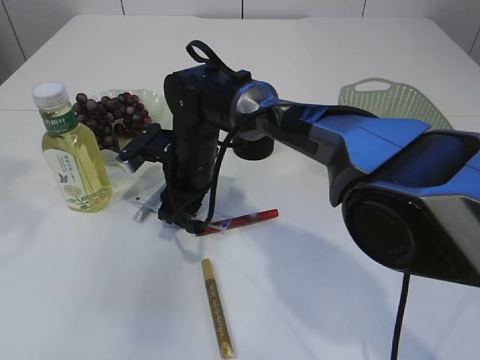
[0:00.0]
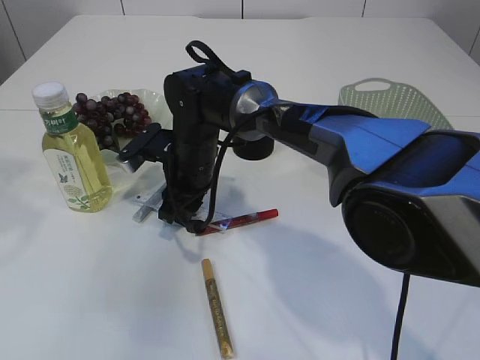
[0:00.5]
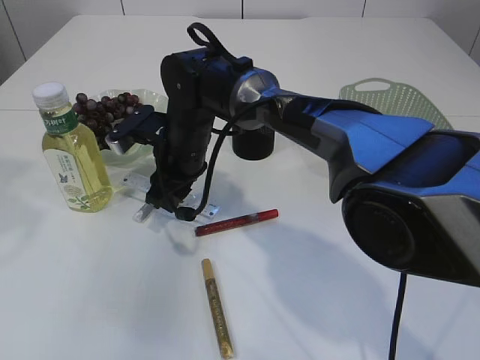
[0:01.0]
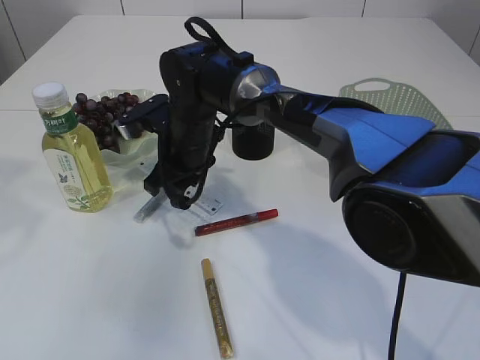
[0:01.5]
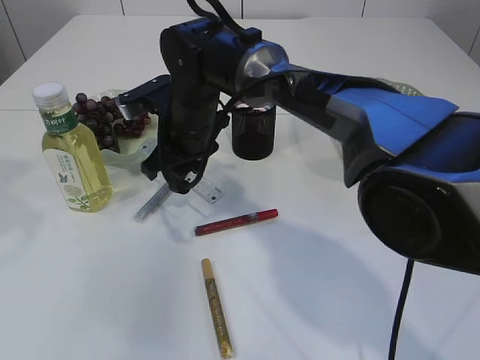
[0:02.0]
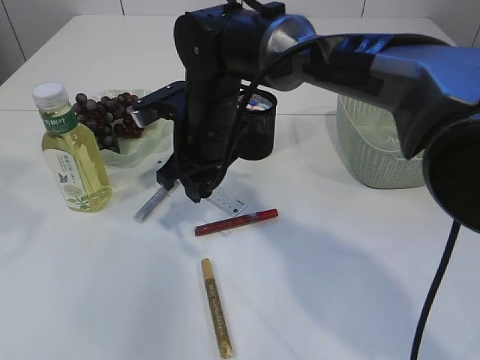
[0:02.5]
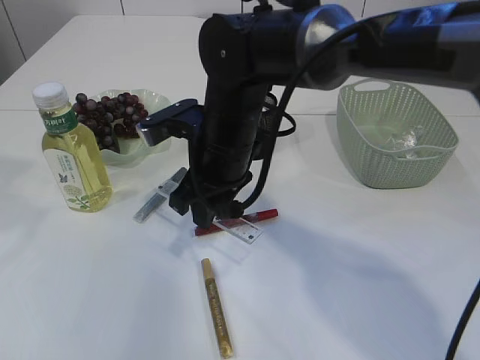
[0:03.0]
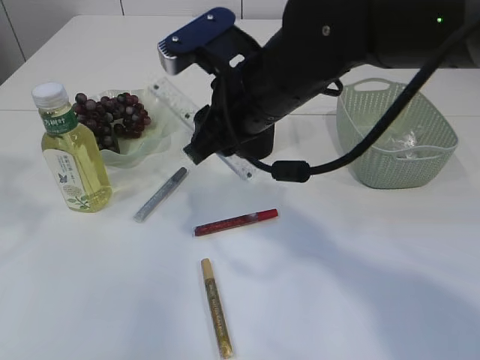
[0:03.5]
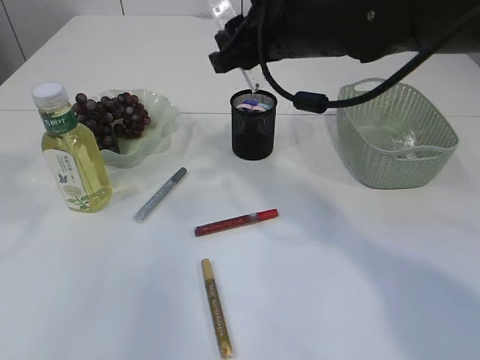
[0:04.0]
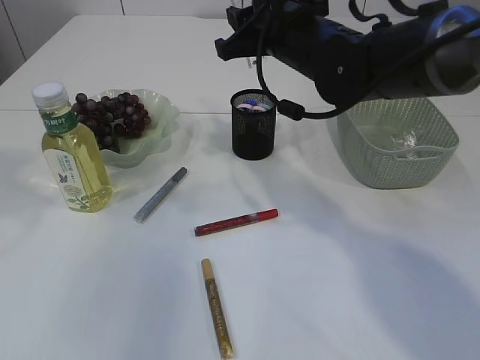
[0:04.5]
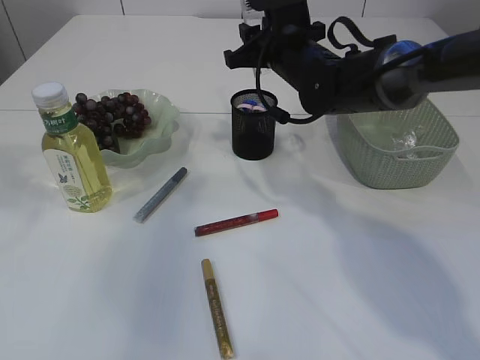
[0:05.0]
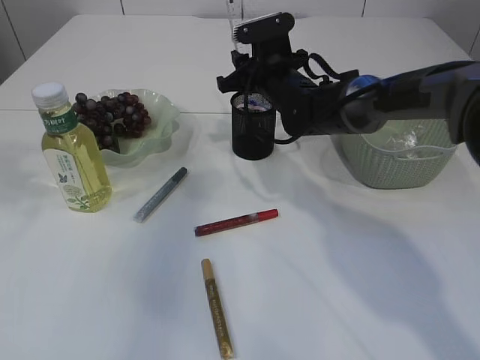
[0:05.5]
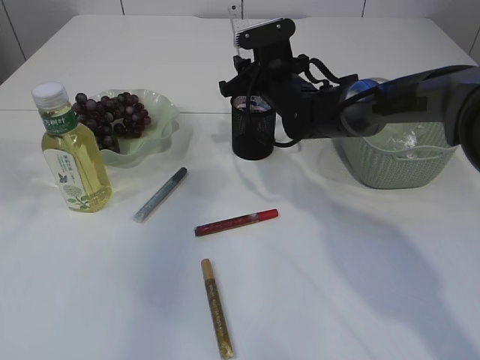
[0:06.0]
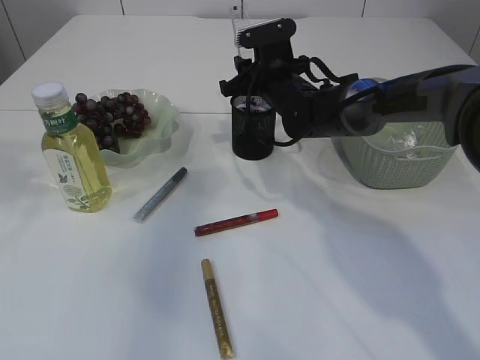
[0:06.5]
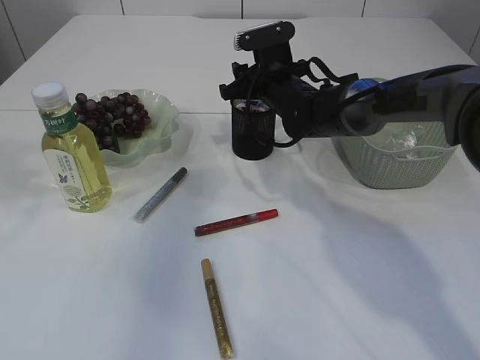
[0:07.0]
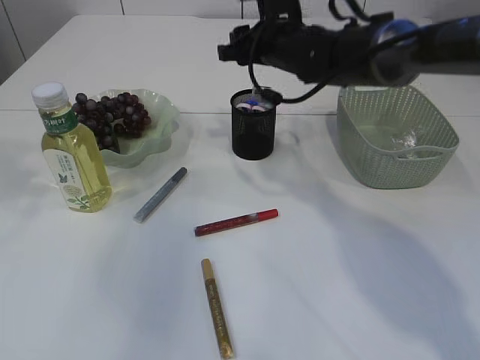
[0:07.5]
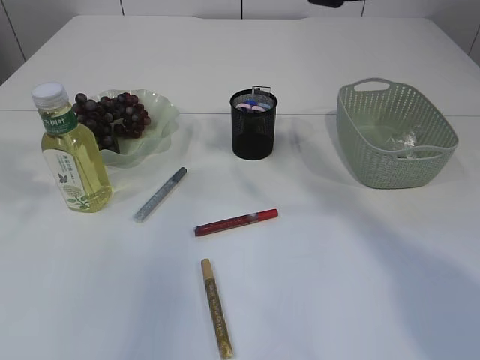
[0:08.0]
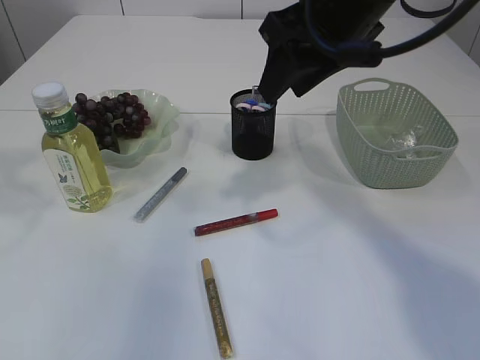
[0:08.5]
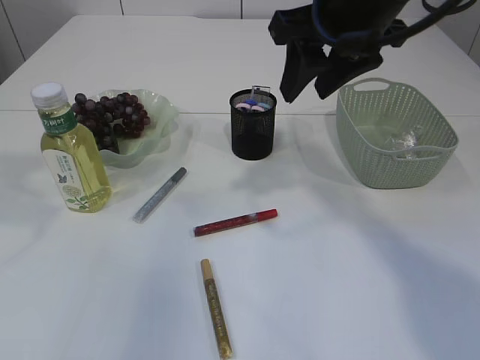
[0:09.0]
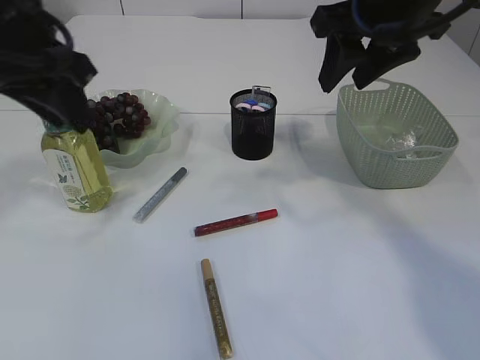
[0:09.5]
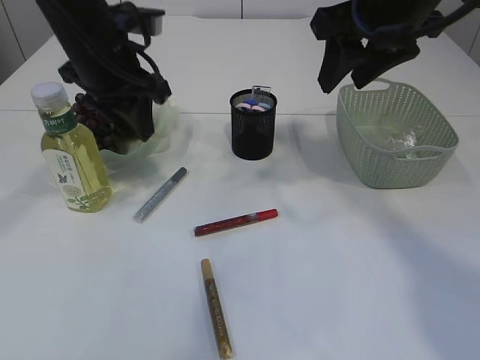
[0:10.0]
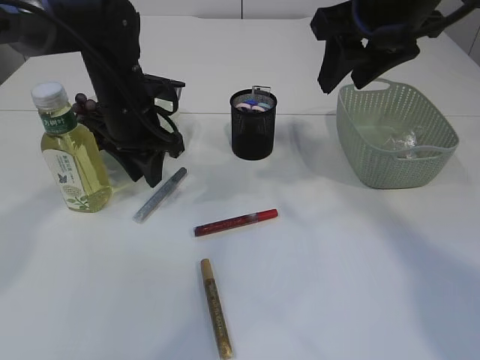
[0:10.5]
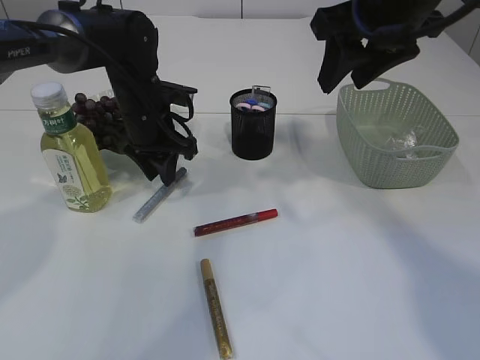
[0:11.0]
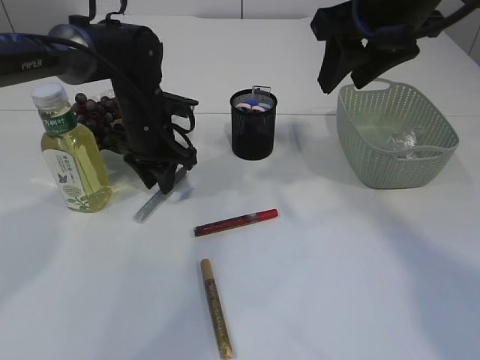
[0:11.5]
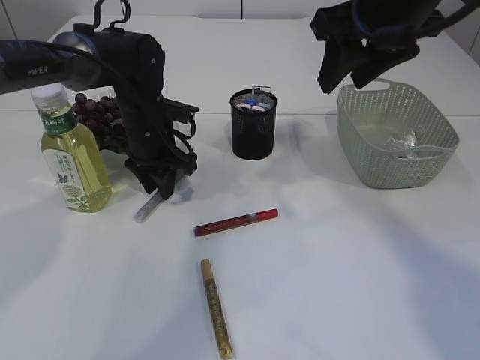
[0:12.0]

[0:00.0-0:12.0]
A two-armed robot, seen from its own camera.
Step, 0:00.0 to 0:02.5: pick up the ruler.
Step, 0:03.0 to 0:07.5: Place the ruler into the pen holder.
0:00.0 to 0:02.0: The right gripper goes approximately 5 cm upward.
0:02.0 to 0:04.0: The right gripper moves upward and to the right, about 15 cm.
0:04.0 to 0:06.0: The right gripper goes some 20 cm forward and downward.
0:06.0 to 0:08.0: The right gripper travels upward and backward by roughly 25 cm.
0:08.0 to 0:10.0: The right gripper travels to the right by roughly 5 cm. Meanwhile the left gripper travels to the right, forward and downward by approximately 20 cm.
0:10.0 to 0:12.0: The left gripper is displaced downward and forward by some 15 cm.

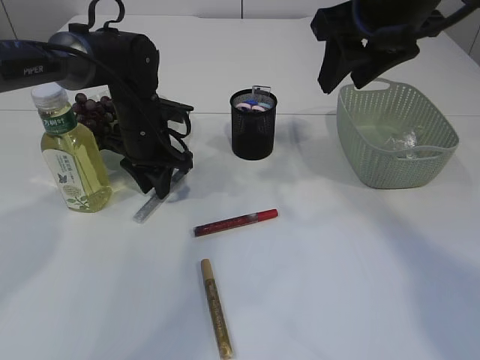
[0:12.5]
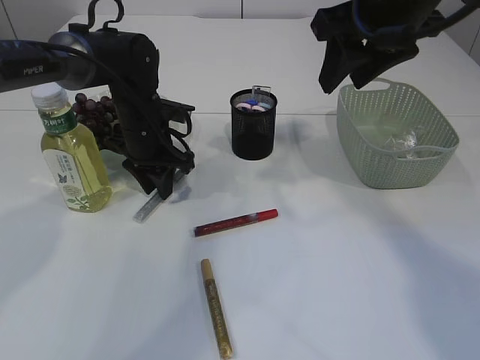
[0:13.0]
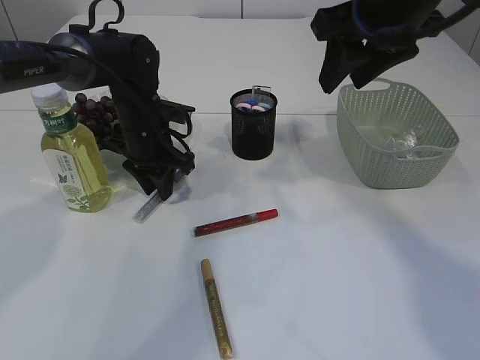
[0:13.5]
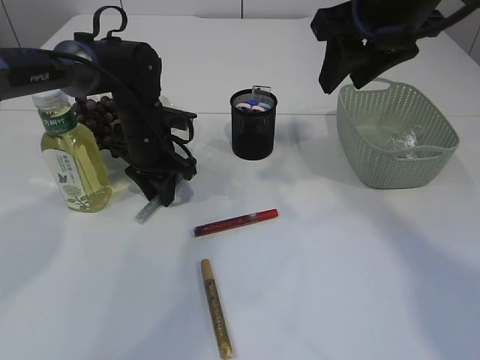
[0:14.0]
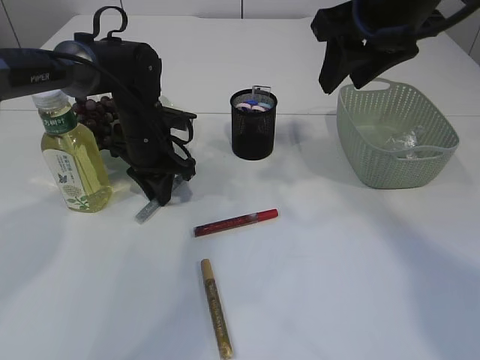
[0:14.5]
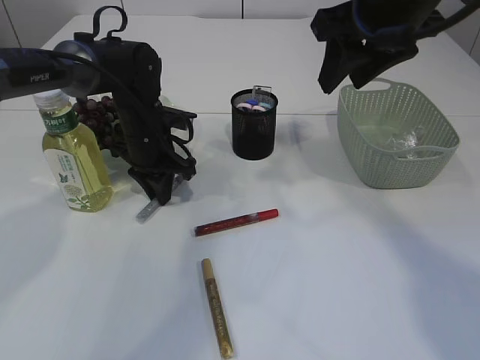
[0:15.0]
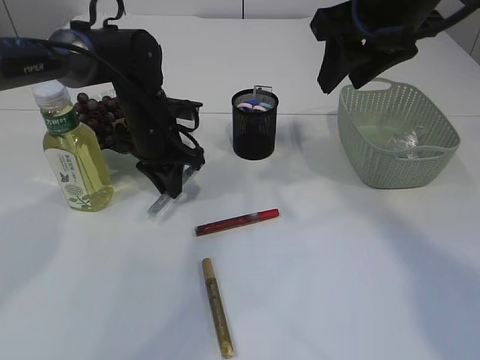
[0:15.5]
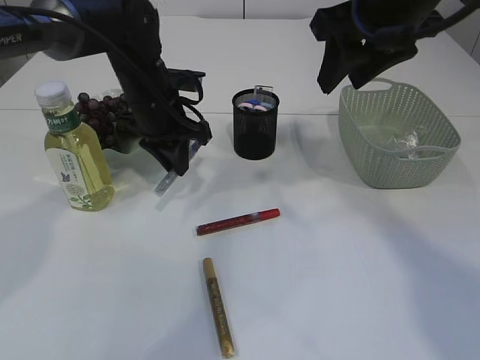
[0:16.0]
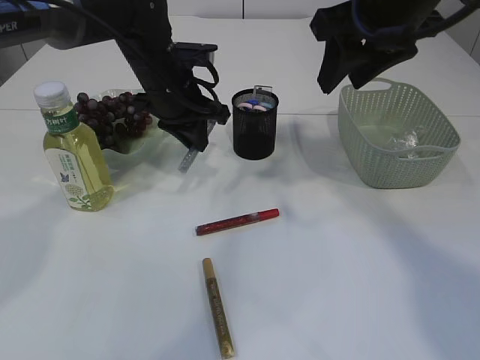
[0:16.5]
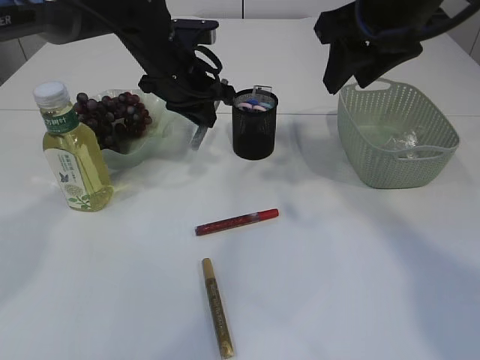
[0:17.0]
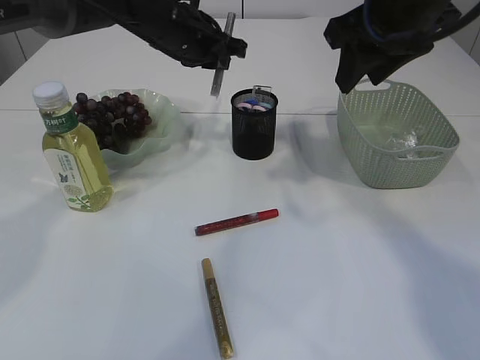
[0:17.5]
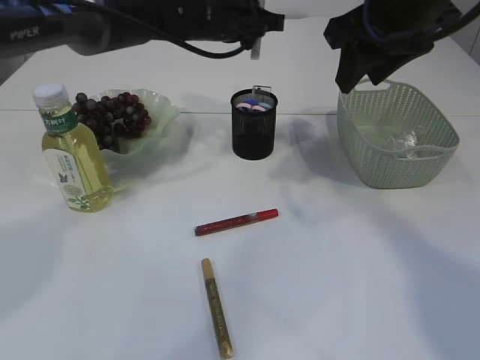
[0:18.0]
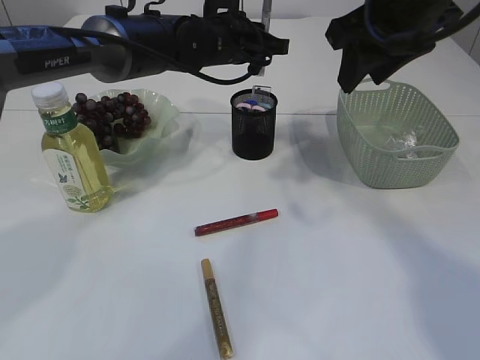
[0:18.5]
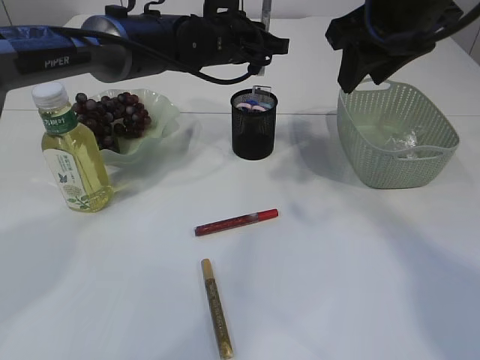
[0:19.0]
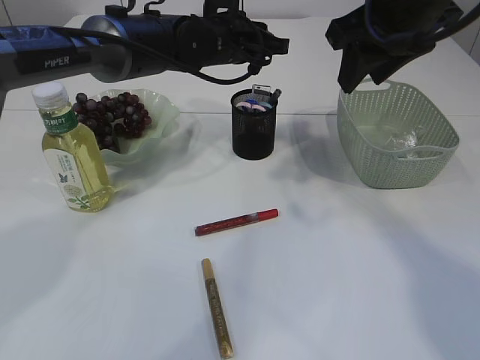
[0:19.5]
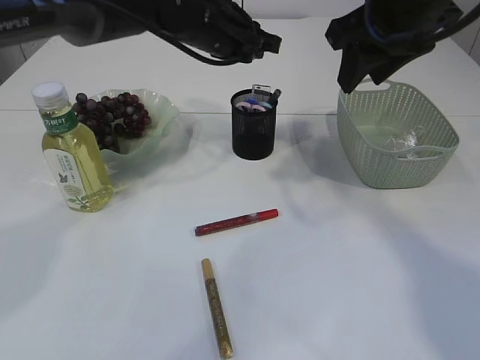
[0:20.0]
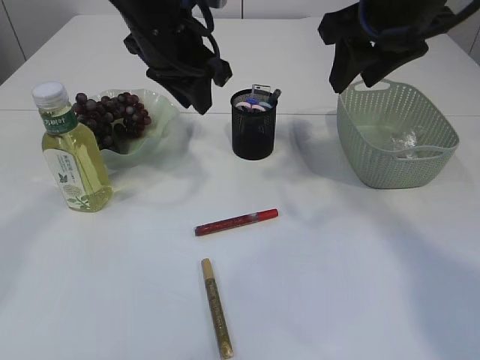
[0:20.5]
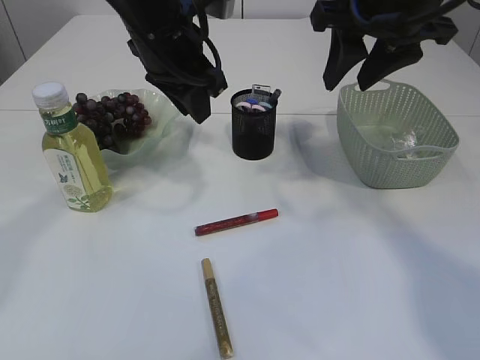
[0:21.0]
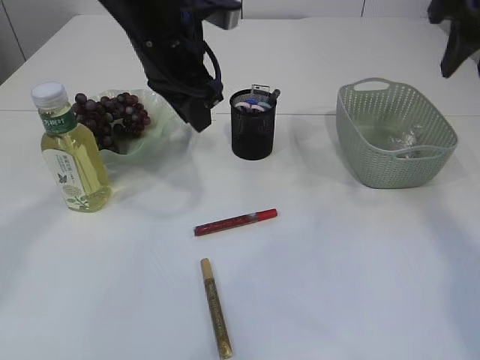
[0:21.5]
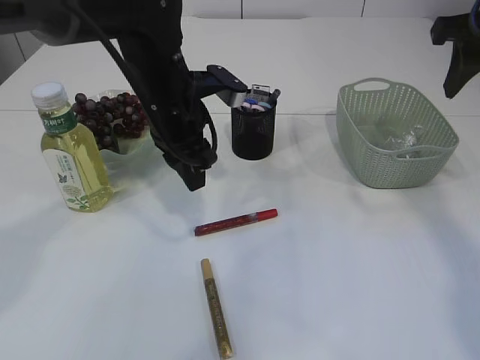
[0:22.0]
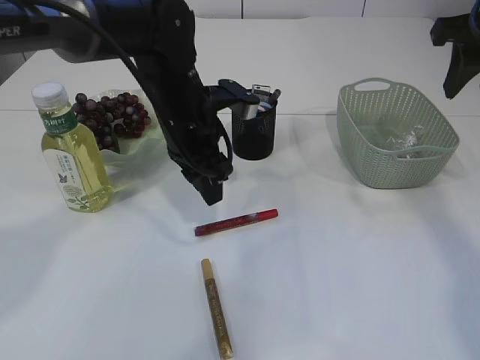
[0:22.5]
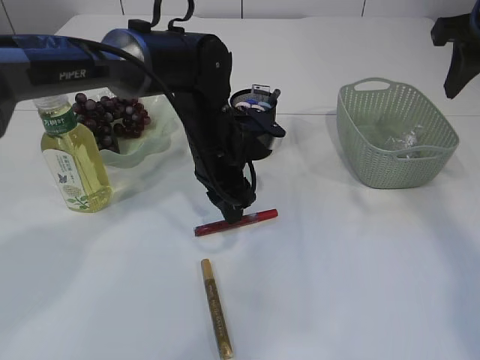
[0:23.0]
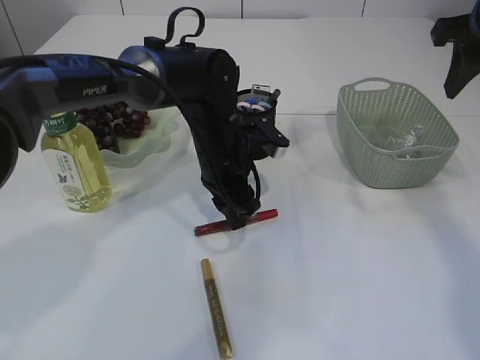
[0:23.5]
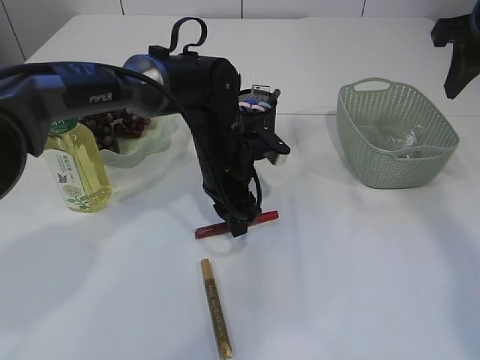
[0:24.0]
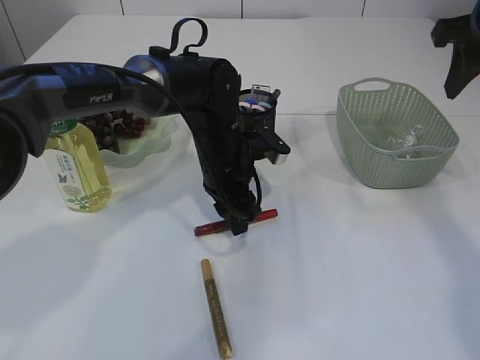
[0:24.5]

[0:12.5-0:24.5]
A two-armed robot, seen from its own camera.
Step, 0:12.5 to 0:16.0: pick up the silver glue.
Step, 0:16.5 to 0:19.5: place the silver glue into the pen holder.
0:12.5 to 0:14.5: Both grippers stay put.
0:14.5 to 0:16.5: The left gripper heads upward, covering roughly 10 cm.
0:16.5 to 0:18.5: The left gripper shifts some 5 cm to the right.
0:18.5 to 0:20.5: The left gripper shifts roughly 10 cm backward, upward and to the left.
0:20.5 to 0:22.5: The left gripper goes approximately 10 cm downward; the right gripper goes some 10 cm to the right.
0:22.5 to 0:24.5: The left gripper heads downward, covering roughly 5 cm.

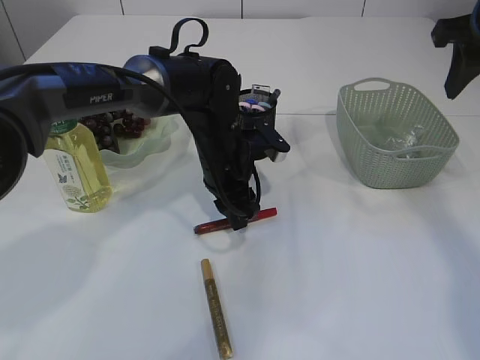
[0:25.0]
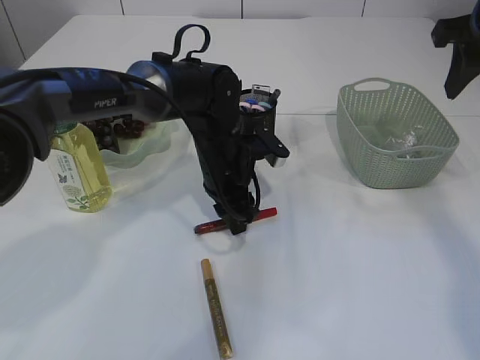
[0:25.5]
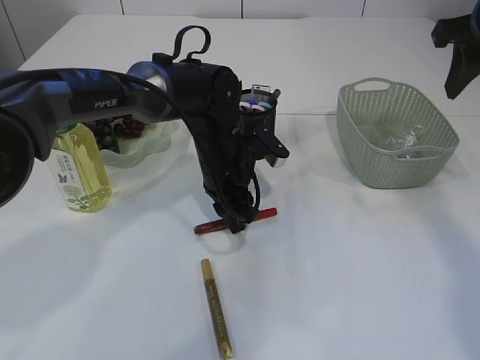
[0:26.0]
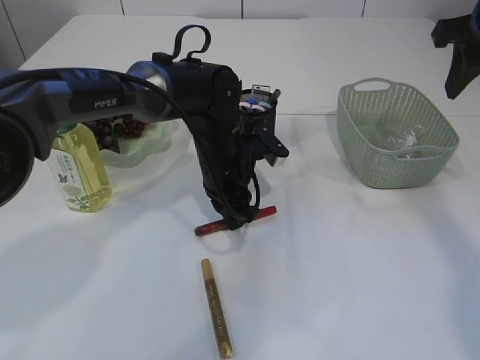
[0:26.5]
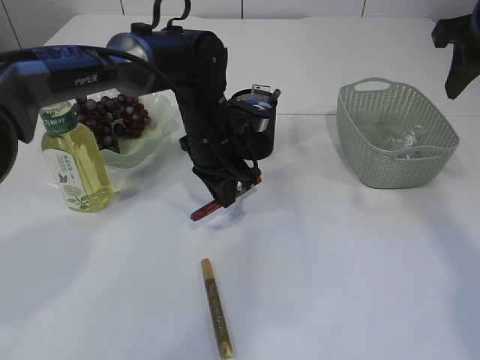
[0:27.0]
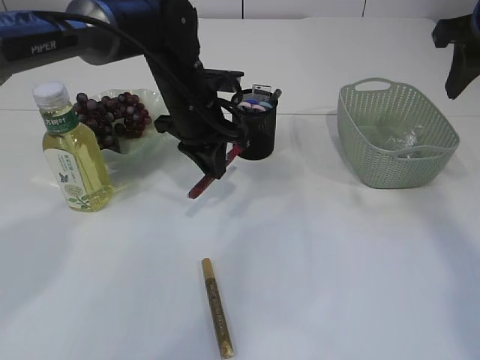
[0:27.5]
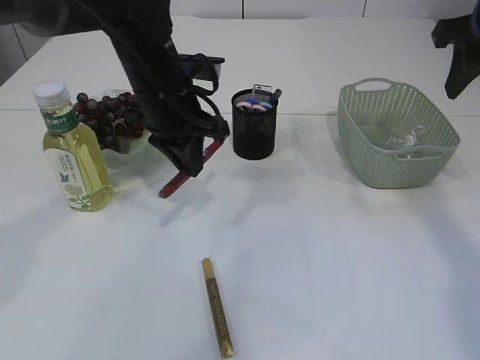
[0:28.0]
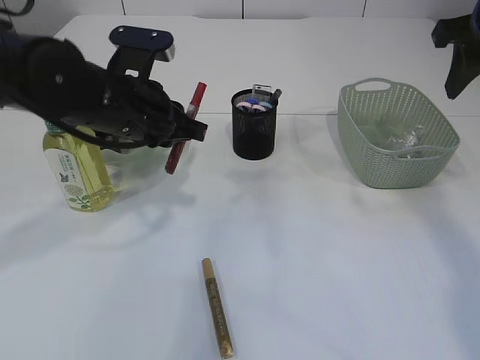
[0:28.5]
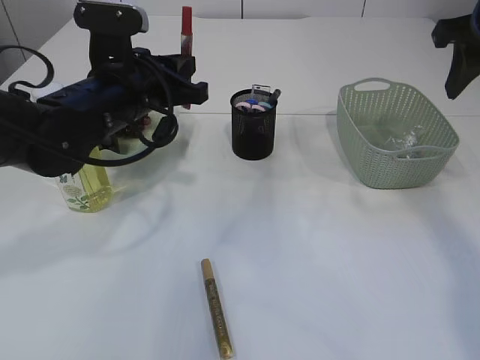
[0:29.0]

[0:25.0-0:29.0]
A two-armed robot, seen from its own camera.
Step, 0:25.0 to 0:27.5: pick up the red glue.
0:25.0 to 0:27.0: The left gripper closes.
0:27.0 to 0:29.0: The left gripper moves to the left, upward and backward, roughly 15 cm.
